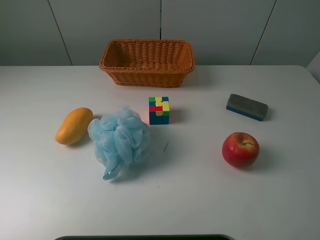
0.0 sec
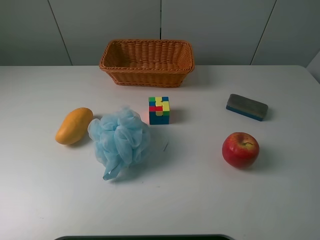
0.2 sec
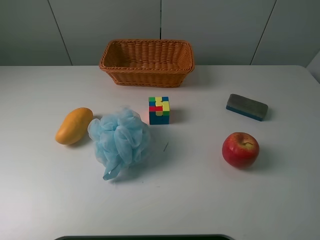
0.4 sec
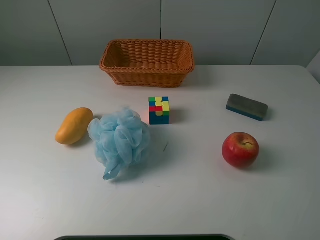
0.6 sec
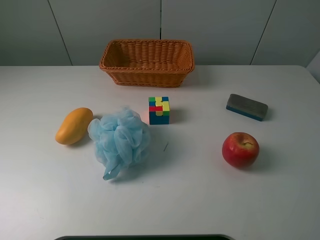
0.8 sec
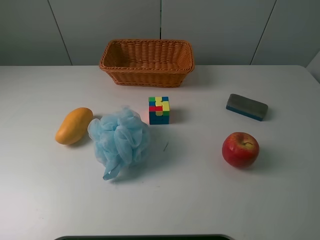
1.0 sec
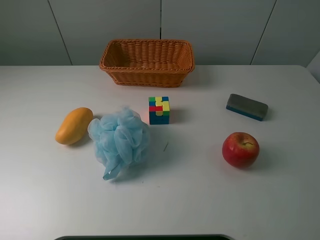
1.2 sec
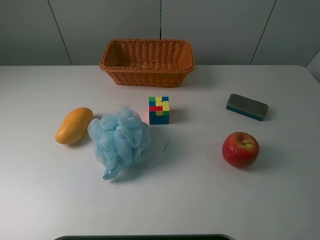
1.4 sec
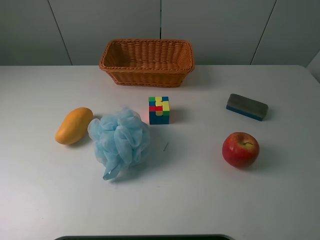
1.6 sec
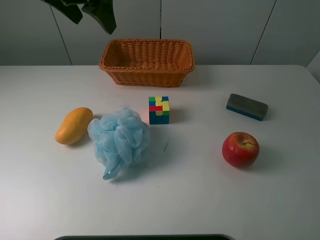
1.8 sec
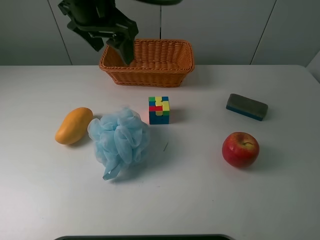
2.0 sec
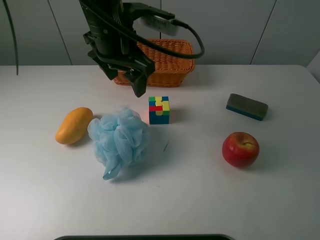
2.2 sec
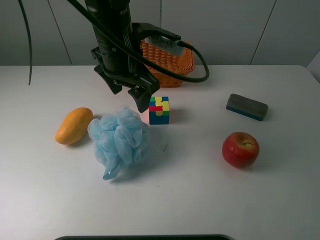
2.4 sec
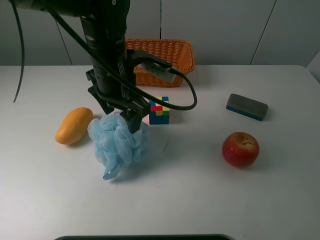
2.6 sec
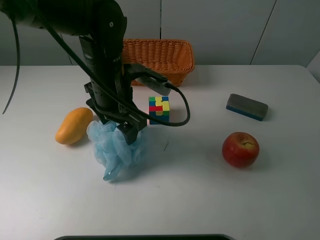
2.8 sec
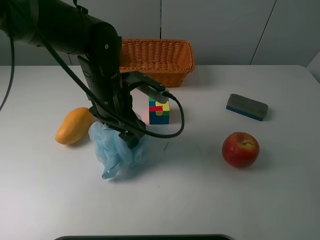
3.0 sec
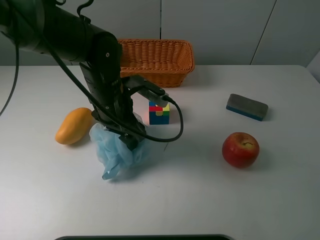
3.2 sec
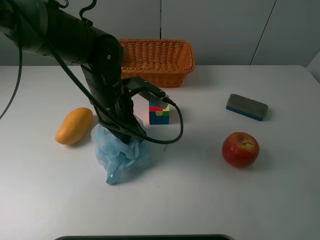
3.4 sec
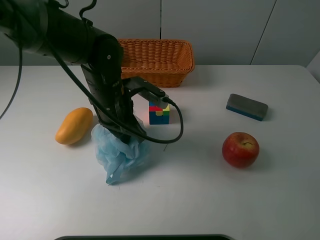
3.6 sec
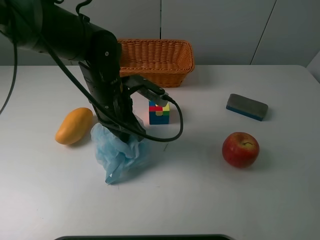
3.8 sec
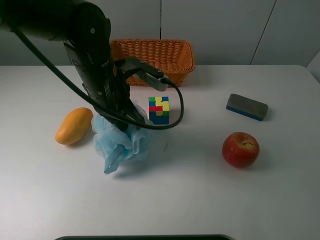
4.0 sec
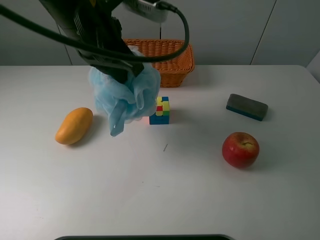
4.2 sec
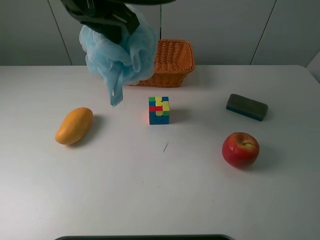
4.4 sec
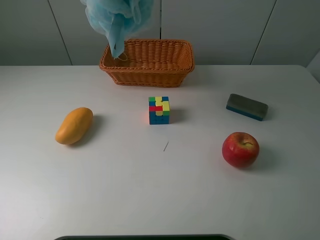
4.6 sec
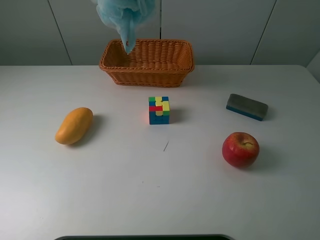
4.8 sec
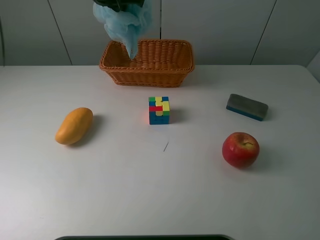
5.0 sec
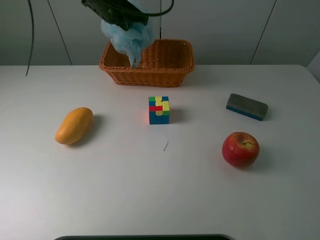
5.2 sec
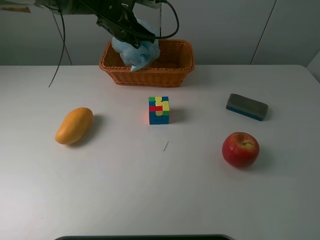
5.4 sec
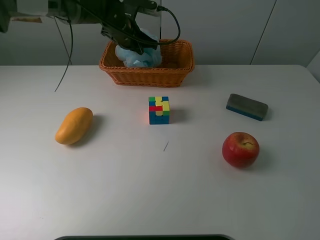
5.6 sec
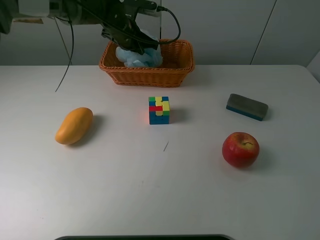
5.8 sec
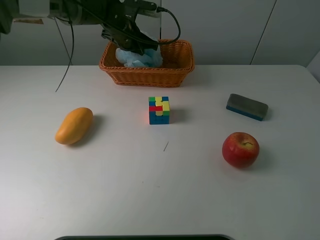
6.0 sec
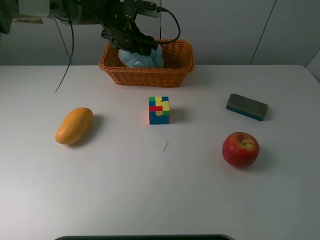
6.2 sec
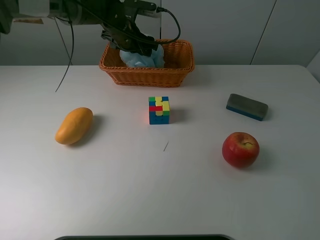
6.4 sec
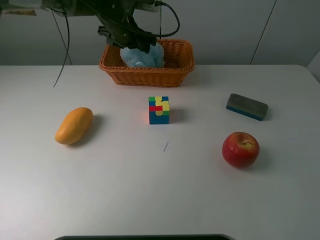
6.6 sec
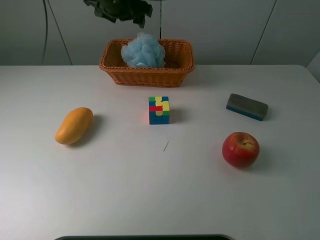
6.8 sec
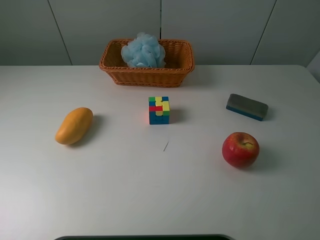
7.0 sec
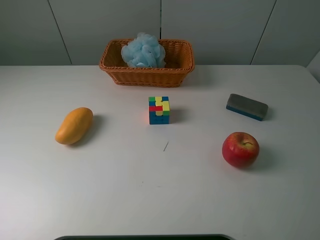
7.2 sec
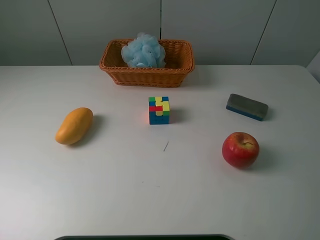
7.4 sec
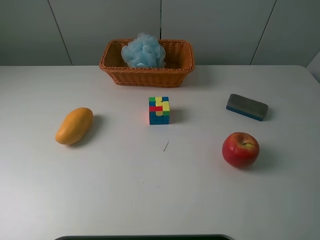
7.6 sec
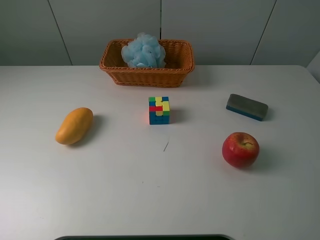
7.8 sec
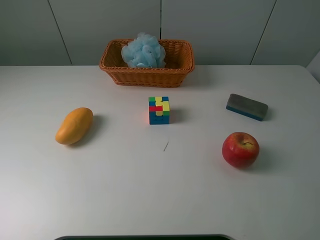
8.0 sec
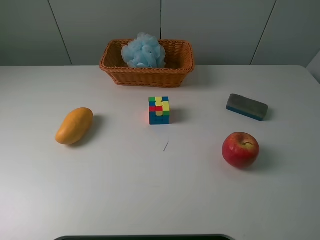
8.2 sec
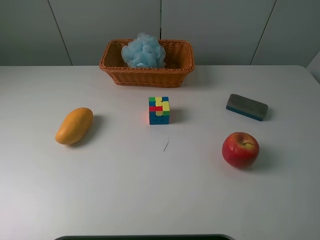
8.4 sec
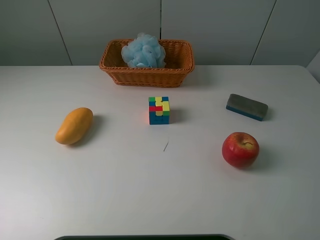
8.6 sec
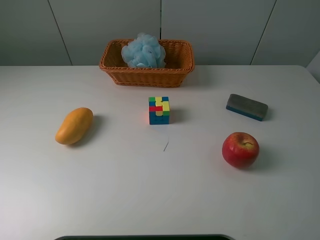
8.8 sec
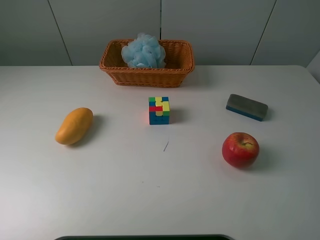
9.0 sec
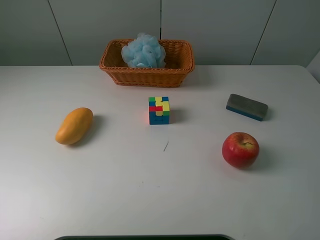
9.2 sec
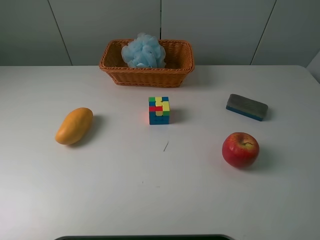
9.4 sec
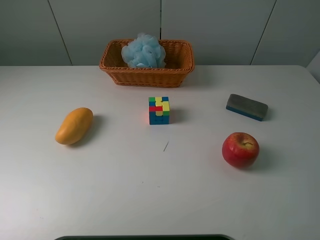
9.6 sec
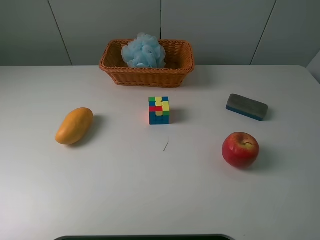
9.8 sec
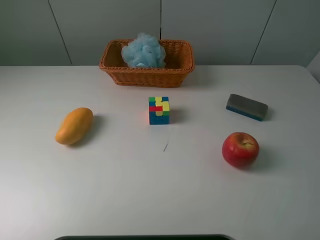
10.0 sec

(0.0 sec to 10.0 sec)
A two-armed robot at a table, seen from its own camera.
Task of the whole recording: use a picker to grab the item closest to the cube and place it in the basket.
Step, 0.0 sec - 3.4 sec: Grasp the Shower puff with the left gripper.
Step, 3.6 sec - 6.8 sec: Place the Shower puff into the basket with the left gripper.
1.4 sec - 2.8 sec: The left gripper shifts some 35 cm downward and to the right.
2.8 sec - 4.2 sec: The left gripper is displaced upward by roughly 15 cm, and closes its fingers.
4.2 sec - 5.8 sec: The left gripper heads forward and downward, covering roughly 25 cm.
5.8 sec - 7.2 sec: The left gripper goes about 40 cm upward and backward, and opens.
